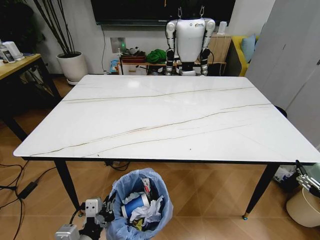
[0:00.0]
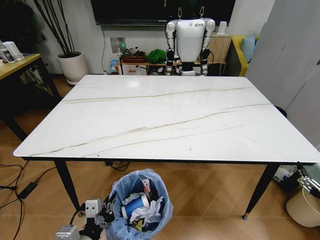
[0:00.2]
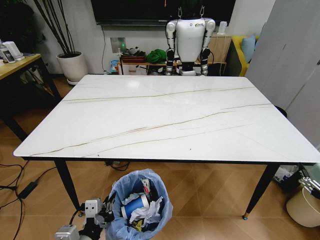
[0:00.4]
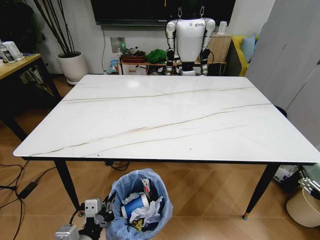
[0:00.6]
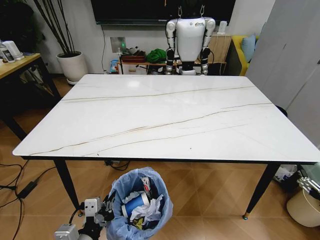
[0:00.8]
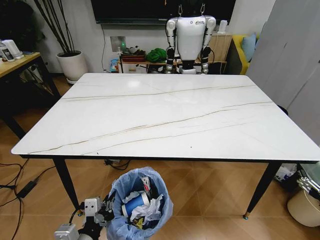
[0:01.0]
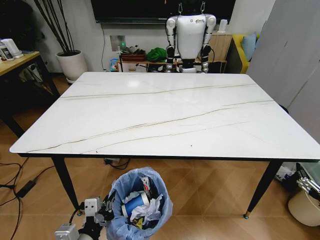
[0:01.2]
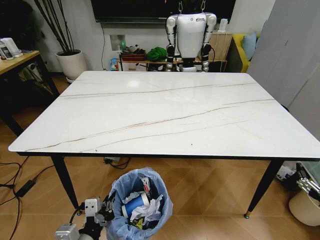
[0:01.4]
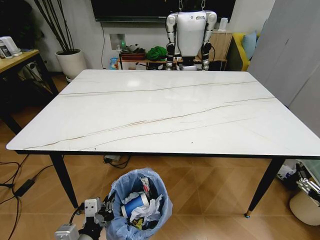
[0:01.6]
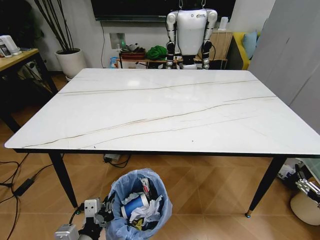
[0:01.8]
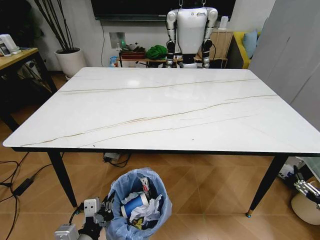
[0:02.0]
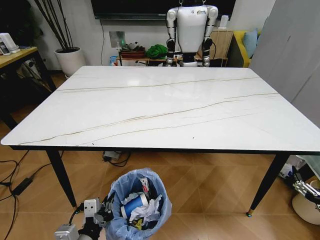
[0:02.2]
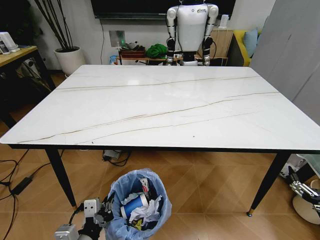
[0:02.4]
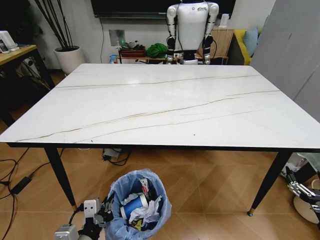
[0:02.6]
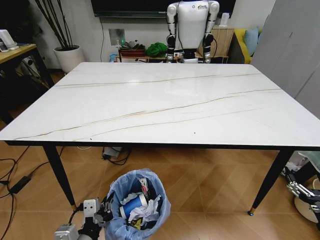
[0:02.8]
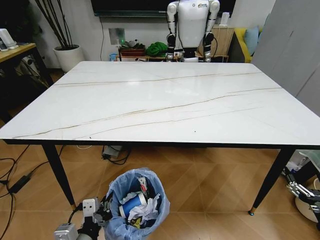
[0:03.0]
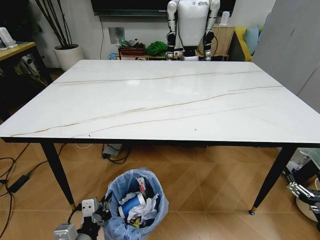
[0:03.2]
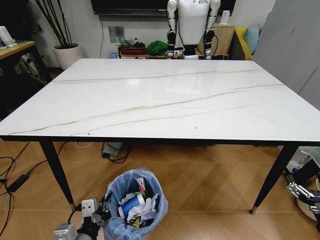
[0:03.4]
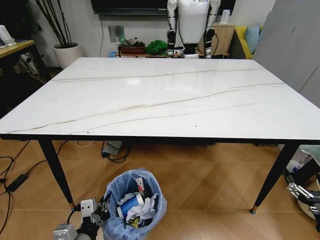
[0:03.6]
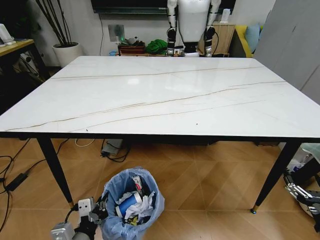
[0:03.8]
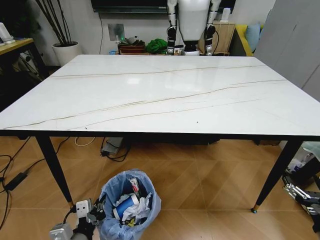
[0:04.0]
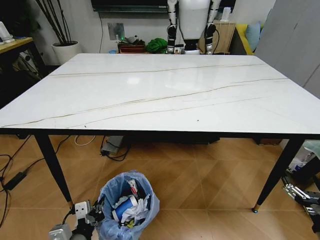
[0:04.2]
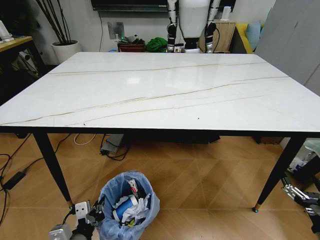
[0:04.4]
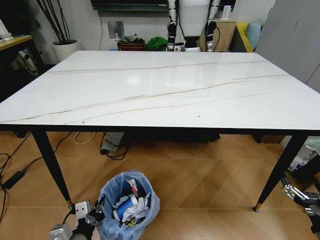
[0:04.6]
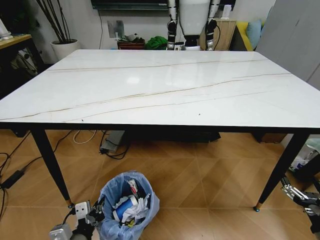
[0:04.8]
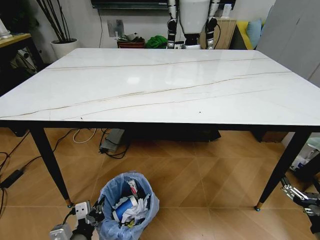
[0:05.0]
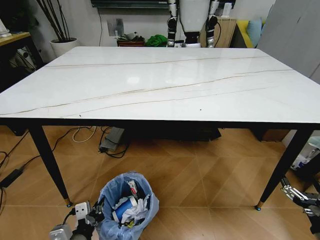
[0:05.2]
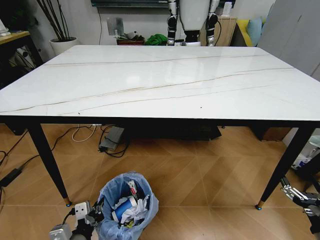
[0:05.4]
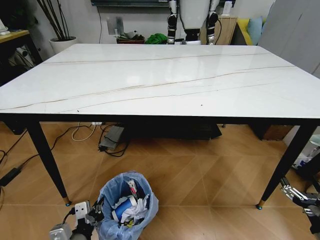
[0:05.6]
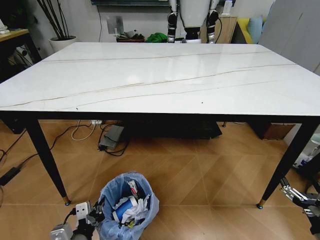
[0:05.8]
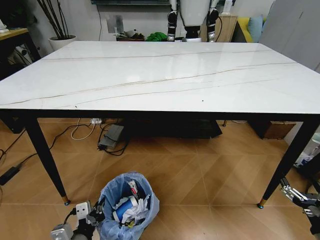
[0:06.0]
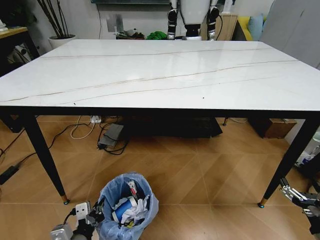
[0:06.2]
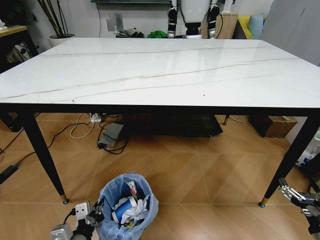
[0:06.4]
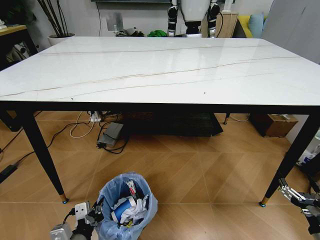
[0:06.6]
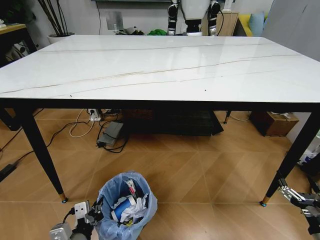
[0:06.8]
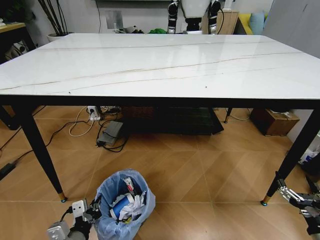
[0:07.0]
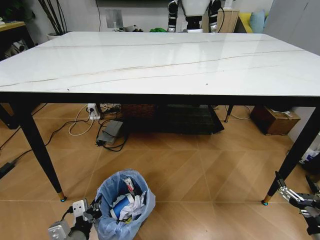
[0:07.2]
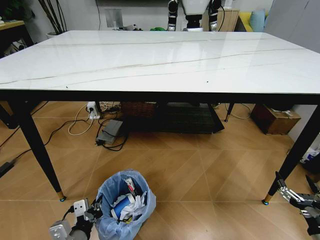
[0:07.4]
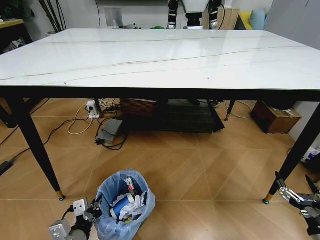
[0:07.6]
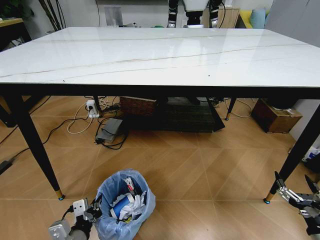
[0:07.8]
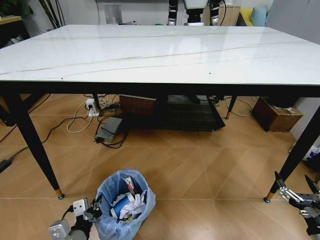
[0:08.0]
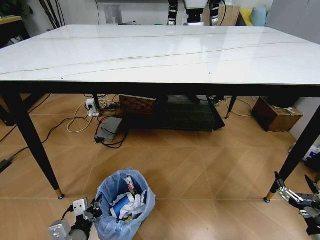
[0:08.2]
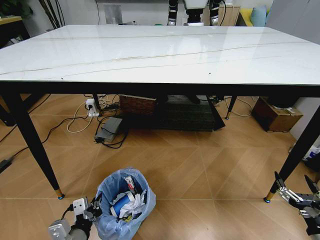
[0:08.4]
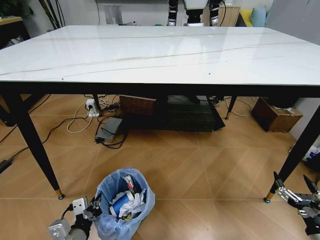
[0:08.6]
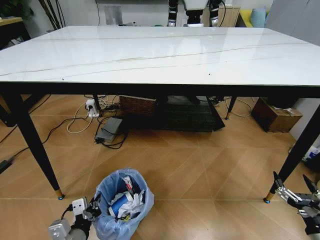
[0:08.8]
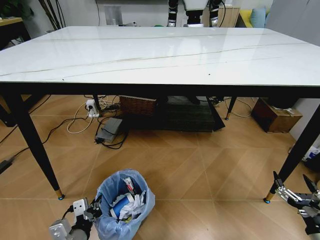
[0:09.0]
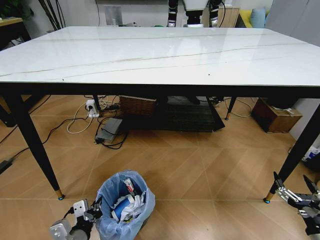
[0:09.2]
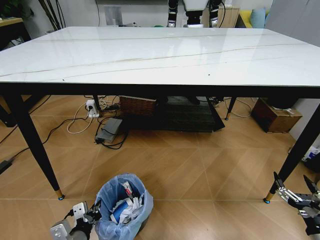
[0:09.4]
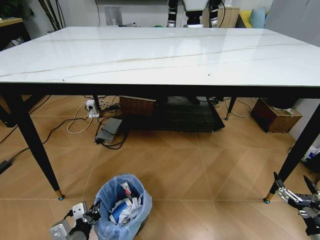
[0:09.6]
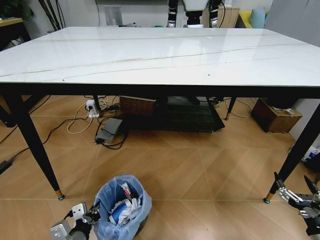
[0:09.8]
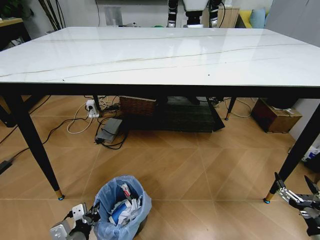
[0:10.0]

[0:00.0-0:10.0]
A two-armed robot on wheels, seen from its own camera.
Task of the whole recording: Pick up the trash bin and place the trash from the table into it.
0:00.0 to 0:01.4: The grippers stay close to where they were, moving slightly.
0:08.6 to 0:10.0: The grippers make only small movements.

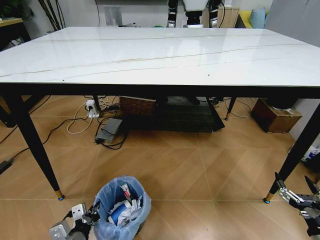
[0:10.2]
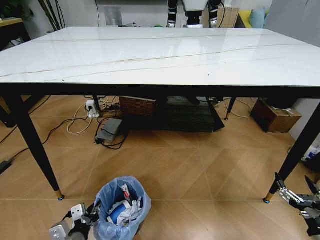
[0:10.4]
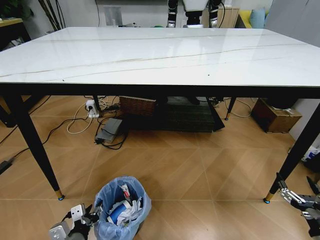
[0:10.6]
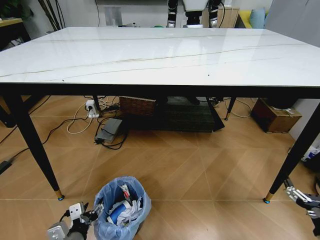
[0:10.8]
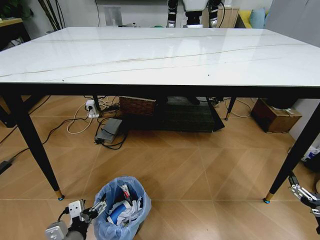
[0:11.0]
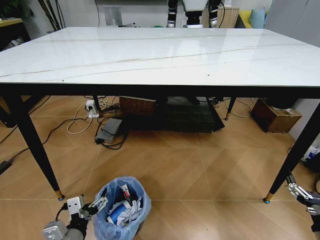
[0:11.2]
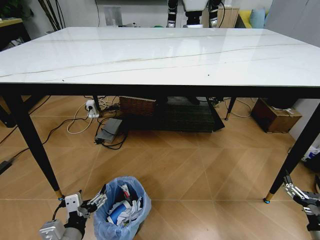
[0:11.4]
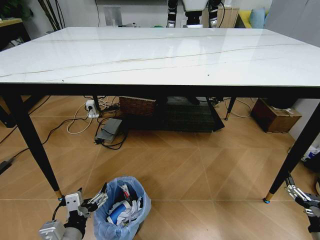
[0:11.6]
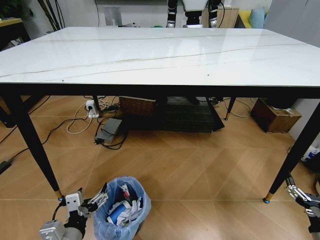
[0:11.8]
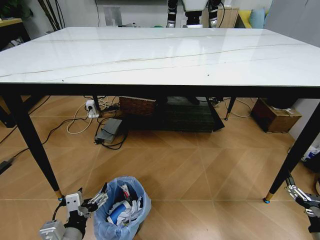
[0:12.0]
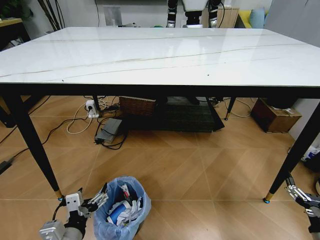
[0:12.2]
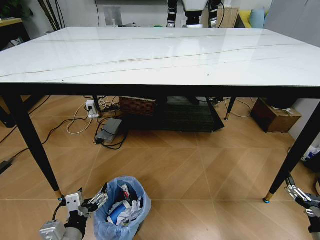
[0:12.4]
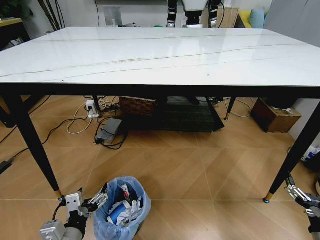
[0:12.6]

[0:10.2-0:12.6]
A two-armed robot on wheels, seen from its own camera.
Task of the whole recording: Pick up the trash bin and place the trash from the table into it.
0:10.2 to 0:11.4: The left gripper heads upward, covering approximately 5 cm, and opens up.
0:11.4 to 0:12.6: The two grippers keep their place.
